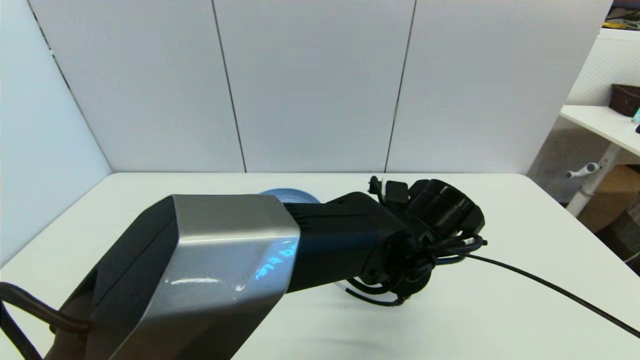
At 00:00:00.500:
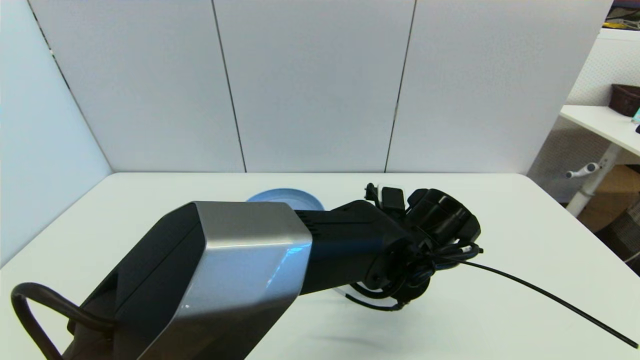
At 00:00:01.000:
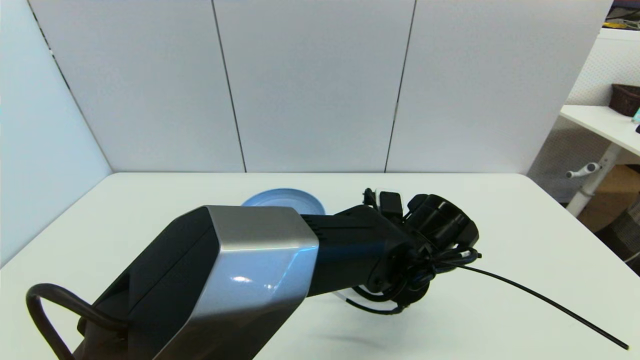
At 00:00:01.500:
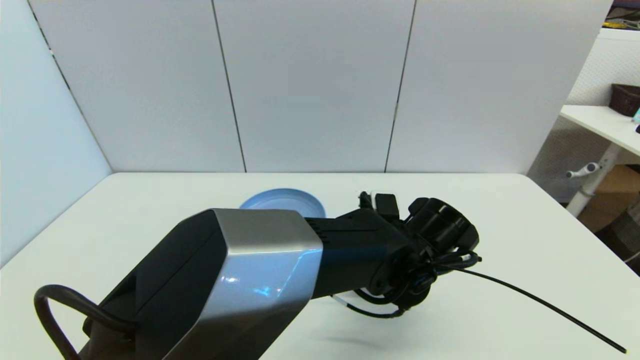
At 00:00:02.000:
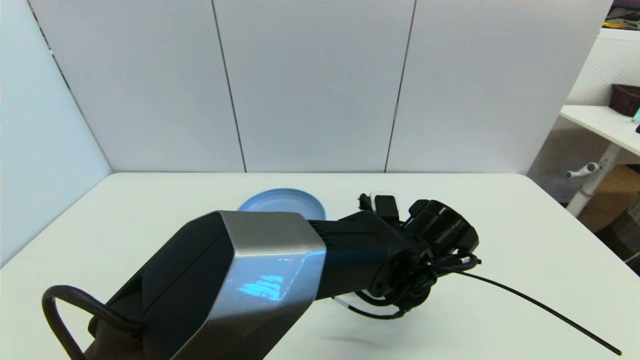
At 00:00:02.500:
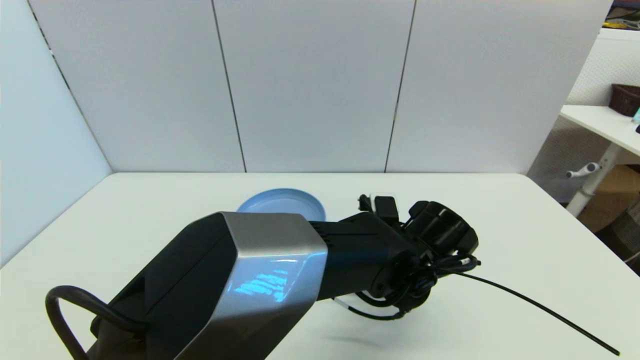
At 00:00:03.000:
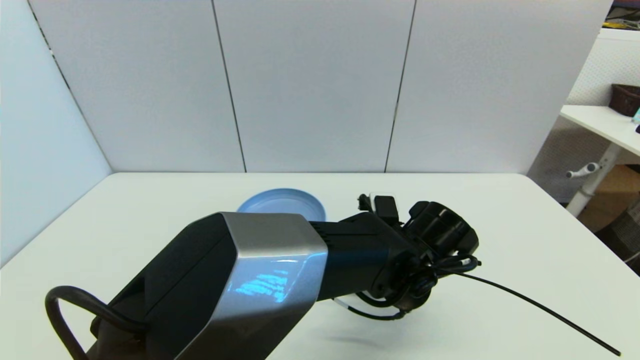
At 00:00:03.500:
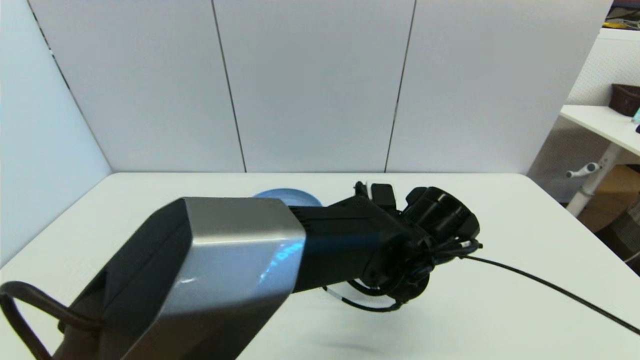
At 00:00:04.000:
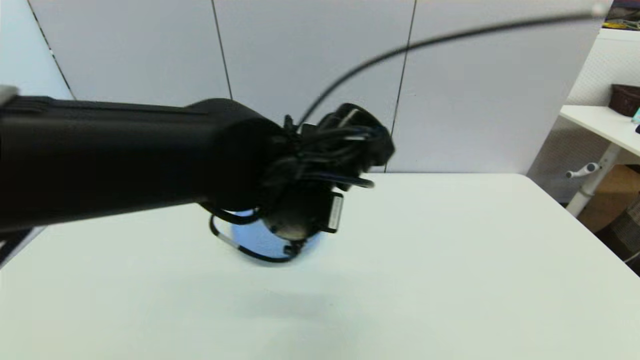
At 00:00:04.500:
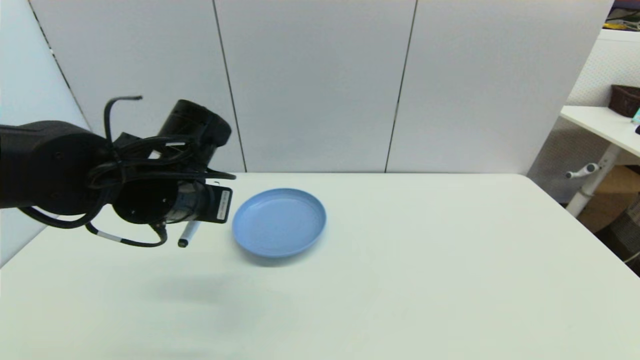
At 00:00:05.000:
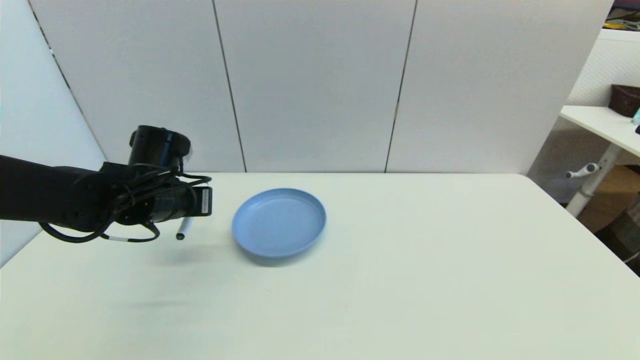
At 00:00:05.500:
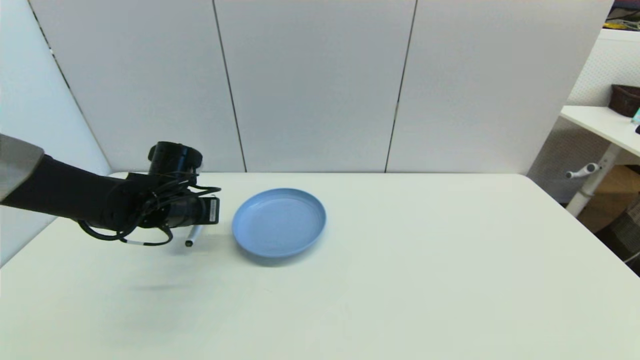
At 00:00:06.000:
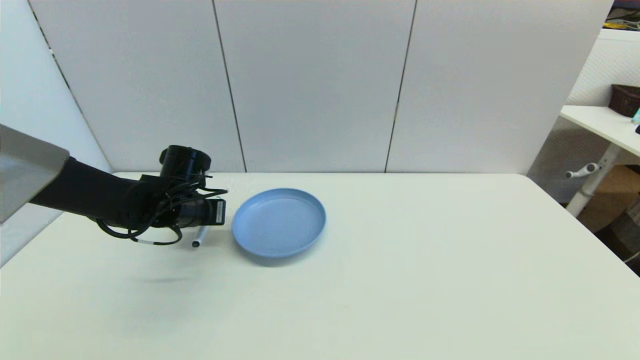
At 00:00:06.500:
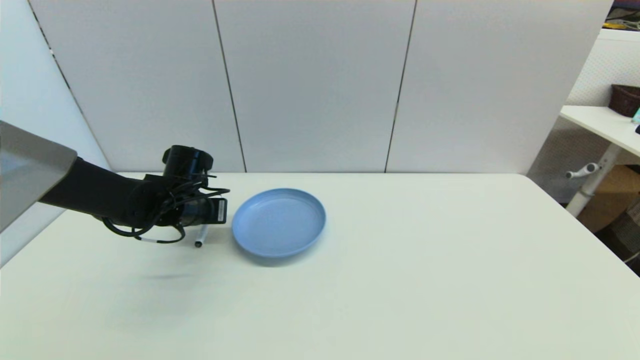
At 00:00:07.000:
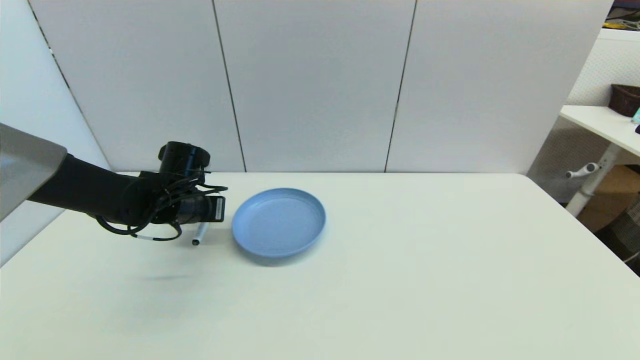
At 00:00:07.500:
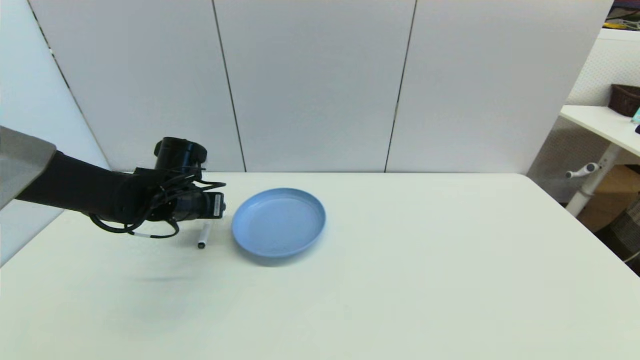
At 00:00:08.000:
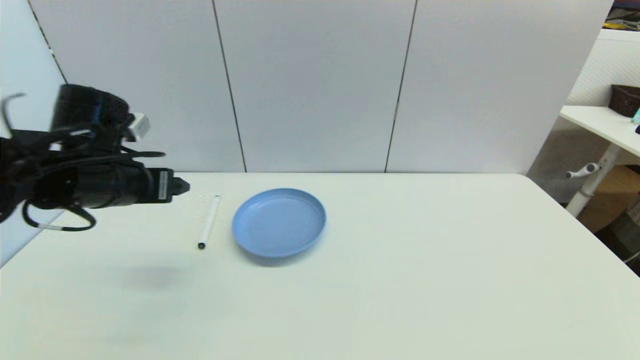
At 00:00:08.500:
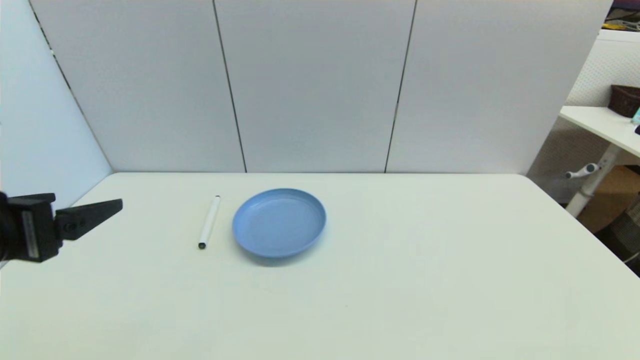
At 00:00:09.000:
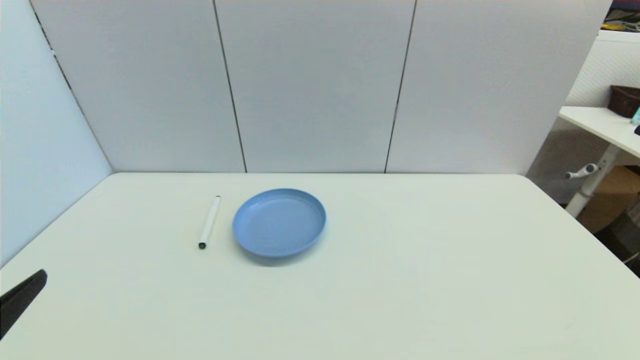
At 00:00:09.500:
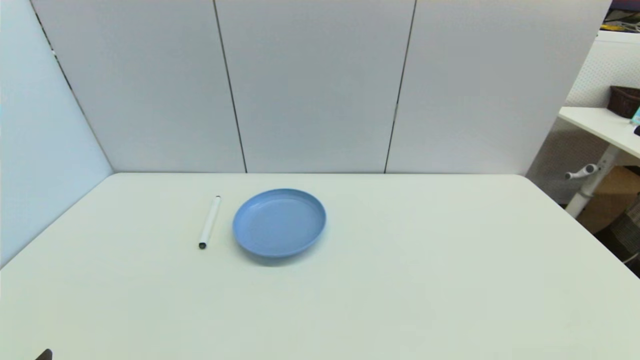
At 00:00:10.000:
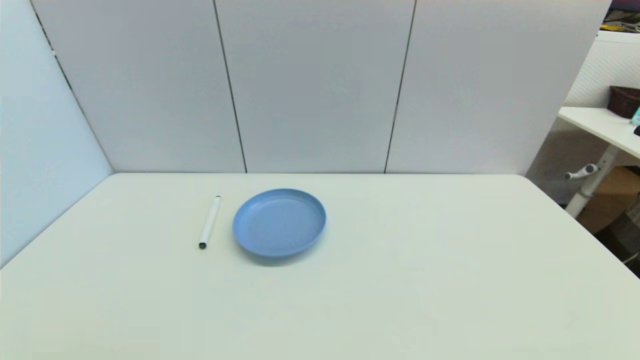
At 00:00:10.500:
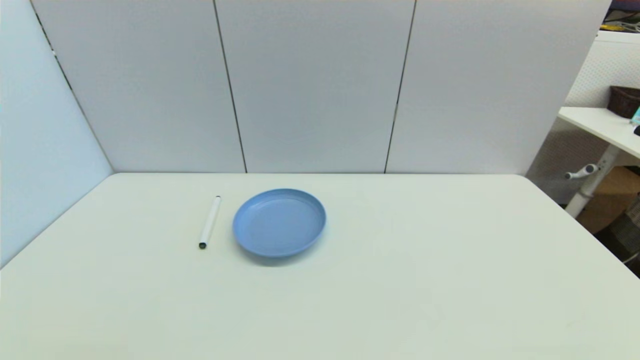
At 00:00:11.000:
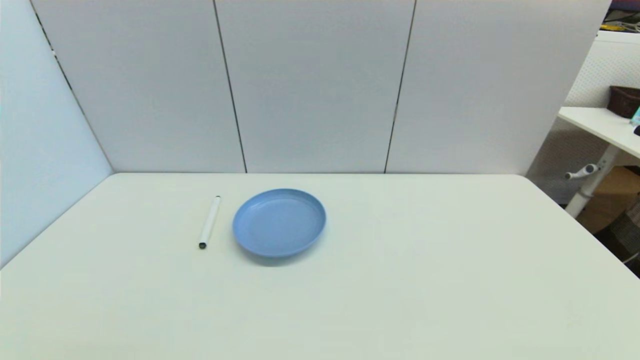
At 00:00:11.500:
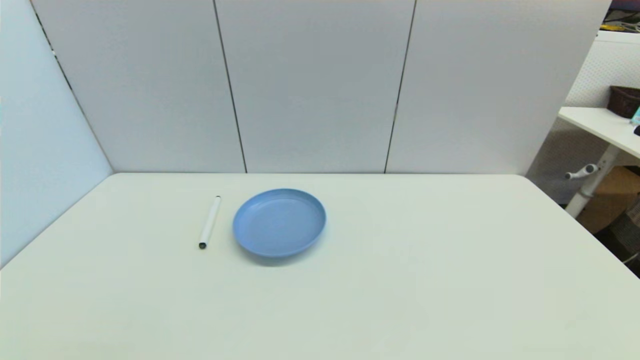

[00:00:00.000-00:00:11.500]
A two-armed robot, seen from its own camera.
Task of the whole recording: put the black marker in the designated position.
Step, 00:00:00.000 to 00:00:02.500: Grasp the Marker pen with left gripper.
Step, 00:00:03.500 to 00:00:07.000: Place the Marker pen on the table with left gripper.
00:00:00.000 to 00:00:02.000: There are only small adjustments of the grippers.
00:00:02.000 to 00:00:04.000: The left gripper moves to the left and upward, about 20 cm, and closes its fingers.
00:00:04.000 to 00:00:06.000: The left gripper goes about 25 cm to the left, forward and downward.
00:00:06.000 to 00:00:07.500: The left gripper opens.
00:00:07.500 to 00:00:09.500: The left gripper heads backward, covering roughly 35 cm, and opens.

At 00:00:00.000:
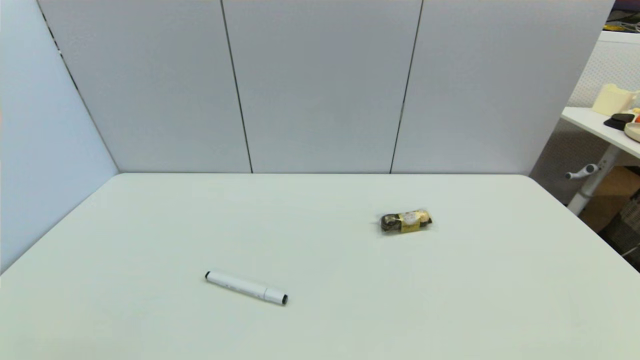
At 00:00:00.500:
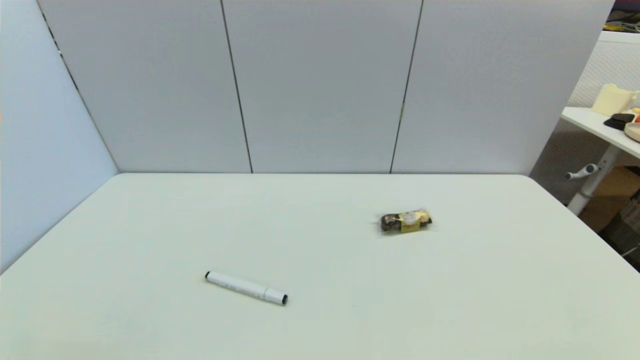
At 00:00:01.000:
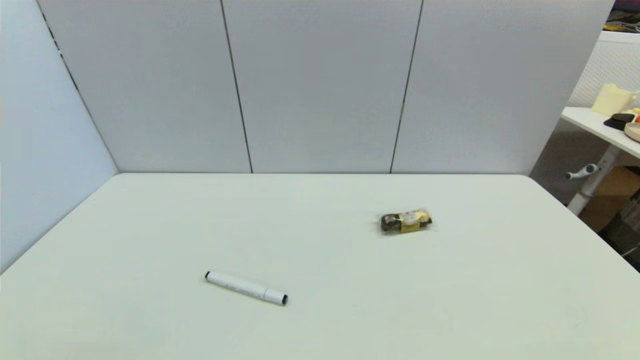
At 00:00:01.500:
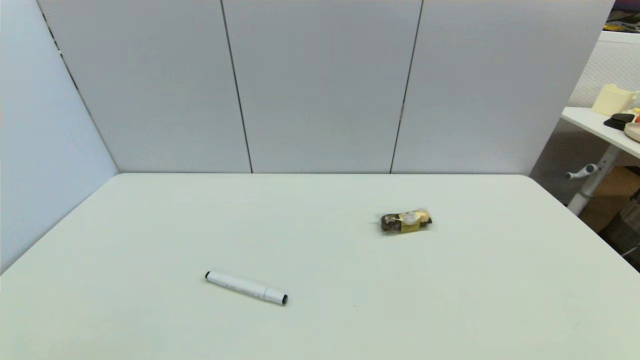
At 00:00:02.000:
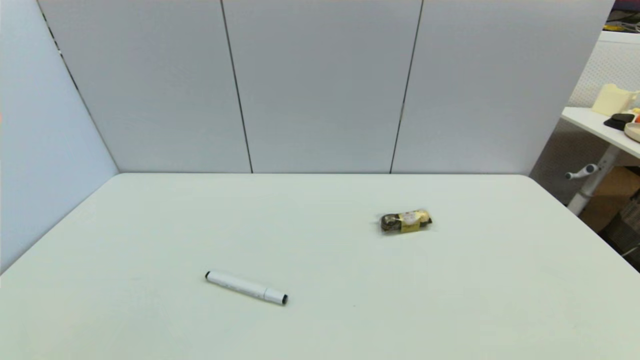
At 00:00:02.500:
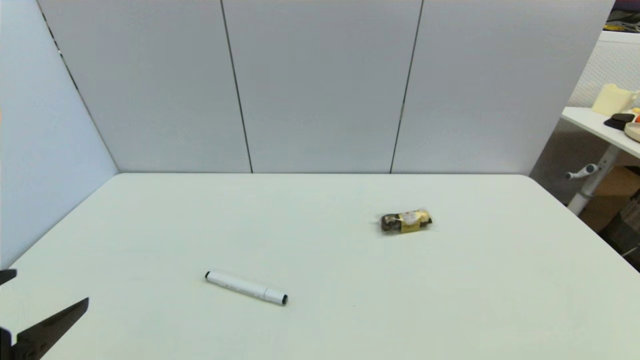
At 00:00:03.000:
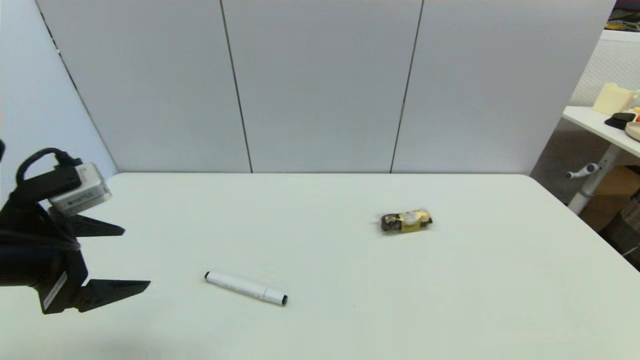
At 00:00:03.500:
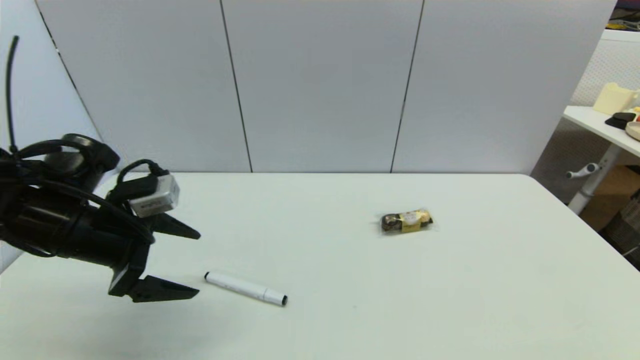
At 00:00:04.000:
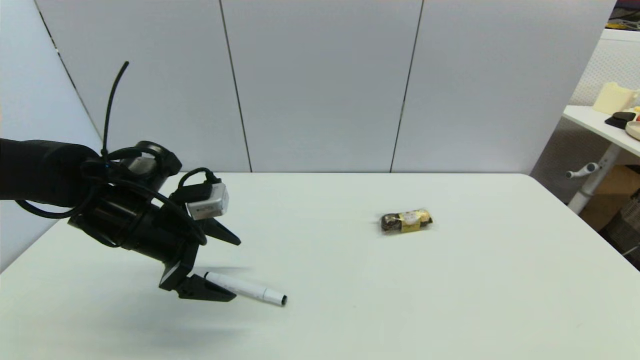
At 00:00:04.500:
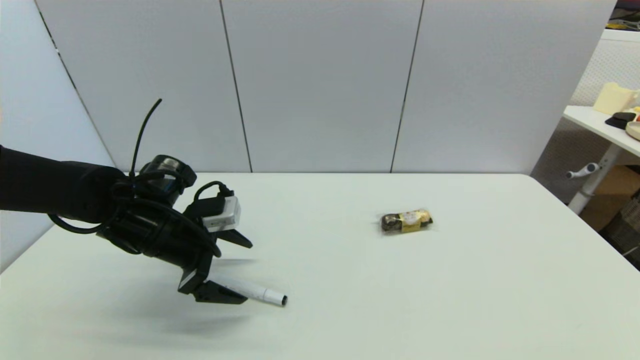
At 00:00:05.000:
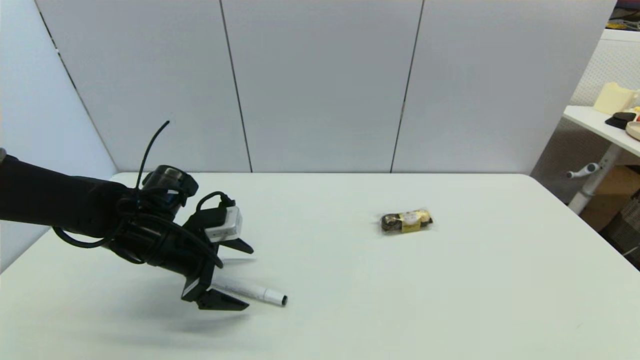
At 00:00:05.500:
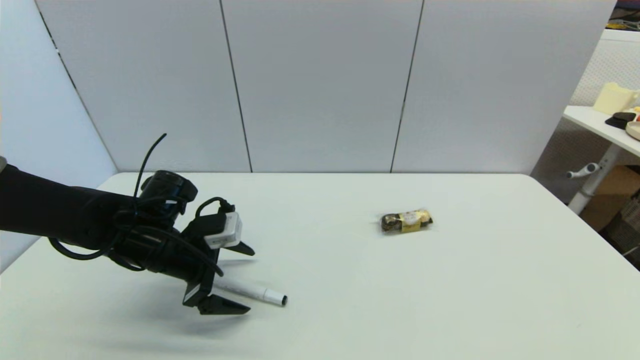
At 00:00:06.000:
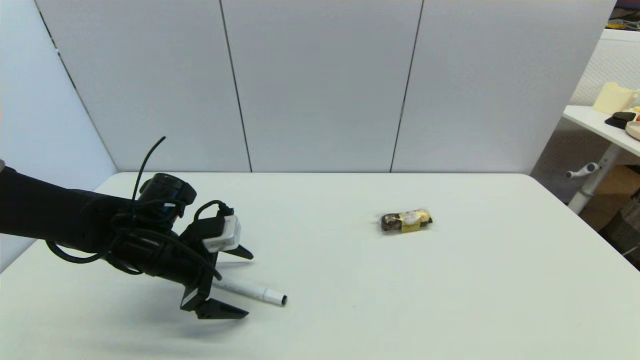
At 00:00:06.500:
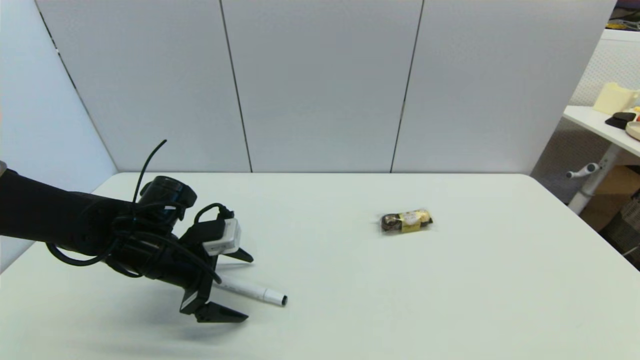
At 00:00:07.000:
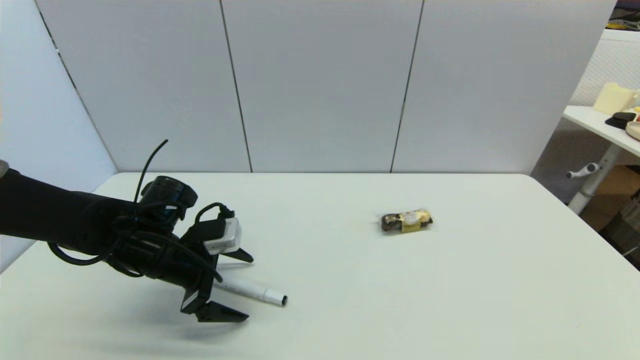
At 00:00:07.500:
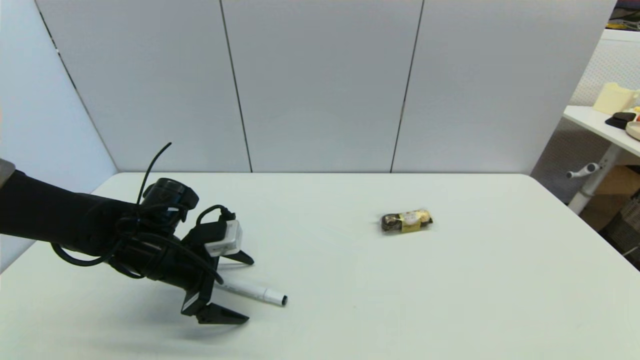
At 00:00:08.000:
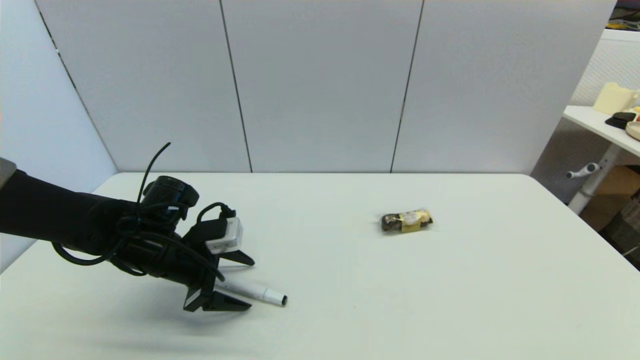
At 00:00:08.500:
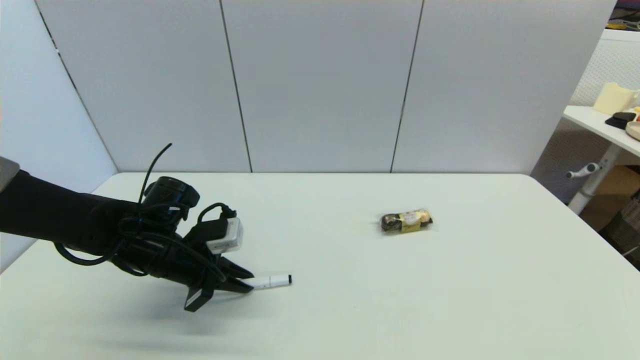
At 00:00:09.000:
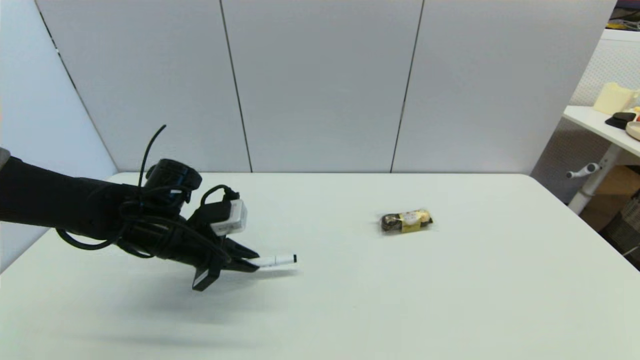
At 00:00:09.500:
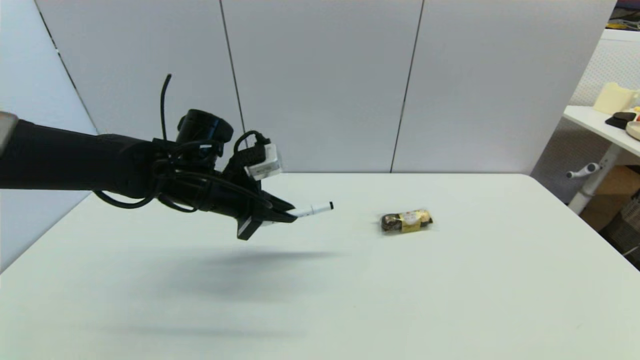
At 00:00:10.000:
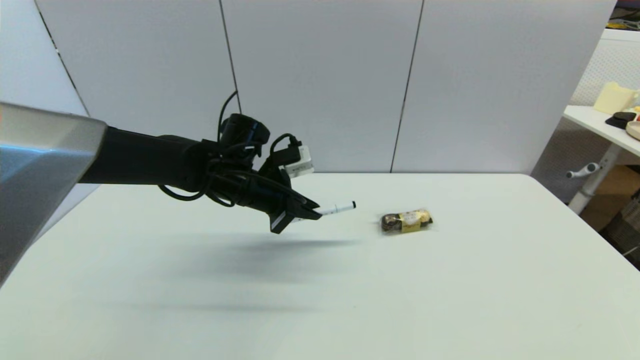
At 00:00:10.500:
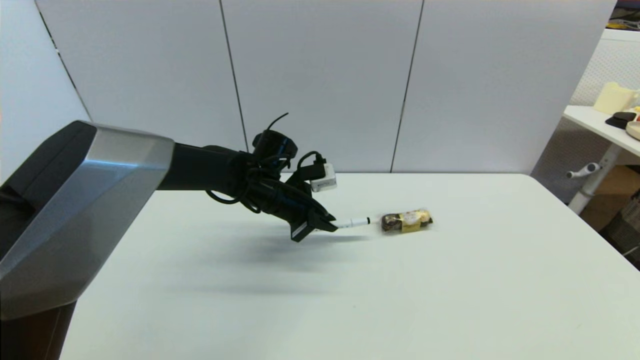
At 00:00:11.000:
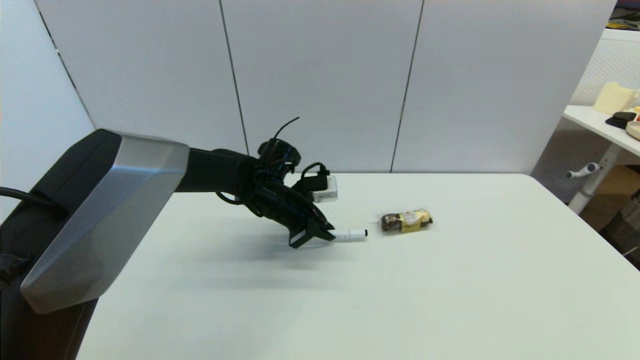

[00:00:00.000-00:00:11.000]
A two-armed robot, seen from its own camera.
Task of the whole recording: put the black marker in the designated position.
Step, 00:00:02.500 to 00:00:08.500: Grasp the Marker pen with left gripper.
00:00:02.000 to 00:00:03.500: The left gripper shifts approximately 25 cm forward.
00:00:03.500 to 00:00:05.500: The left gripper heads downward and to the right, covering roughly 10 cm.
00:00:05.500 to 00:00:07.500: The two grippers keep their place.
00:00:07.500 to 00:00:09.000: The left gripper closes.
00:00:09.000 to 00:00:11.000: The left gripper moves to the right and forward, approximately 15 cm.
